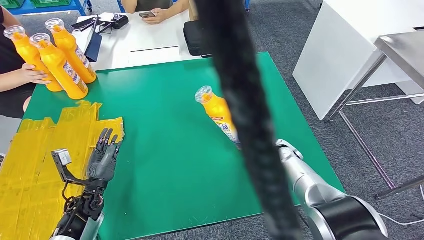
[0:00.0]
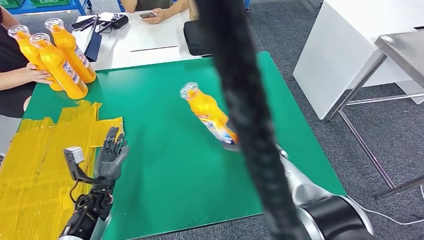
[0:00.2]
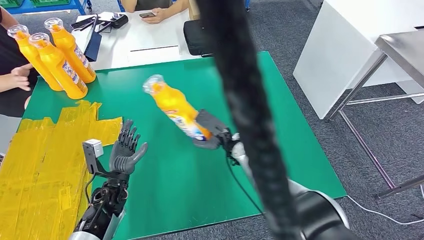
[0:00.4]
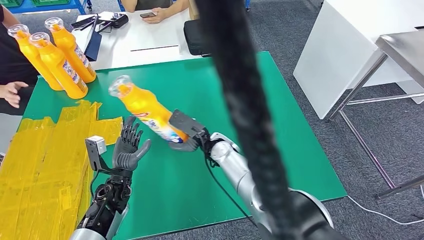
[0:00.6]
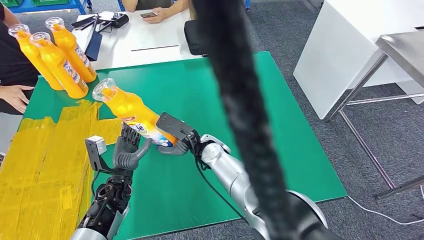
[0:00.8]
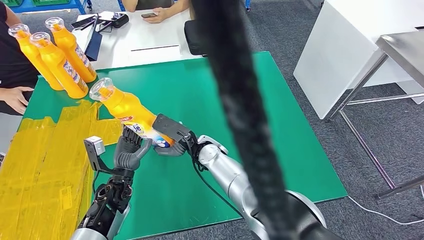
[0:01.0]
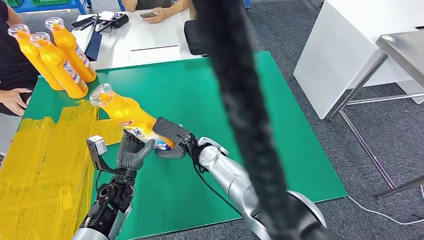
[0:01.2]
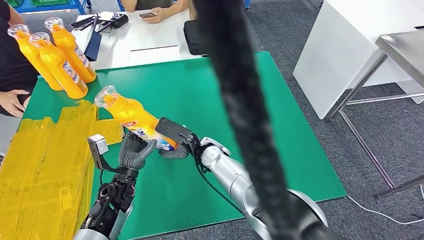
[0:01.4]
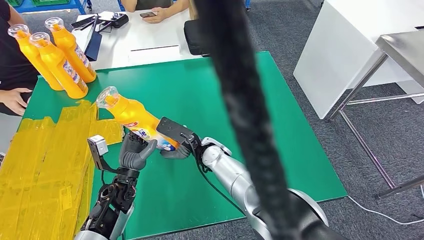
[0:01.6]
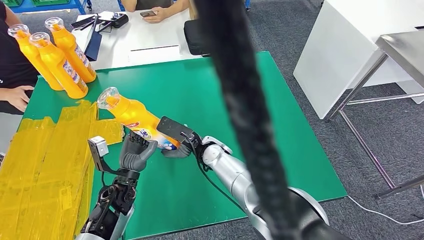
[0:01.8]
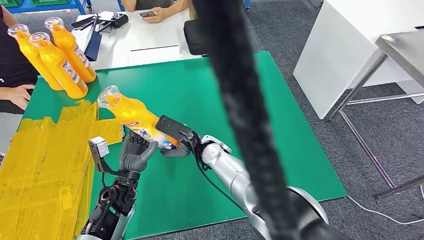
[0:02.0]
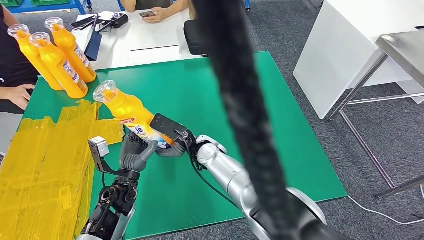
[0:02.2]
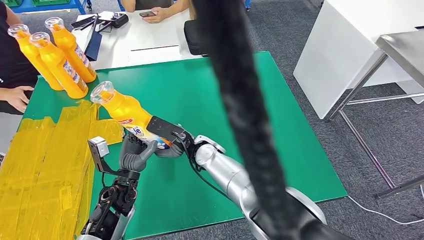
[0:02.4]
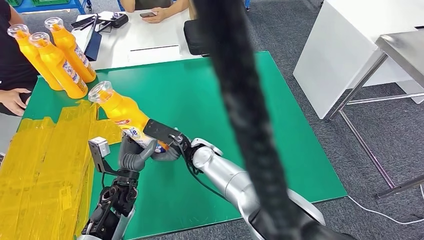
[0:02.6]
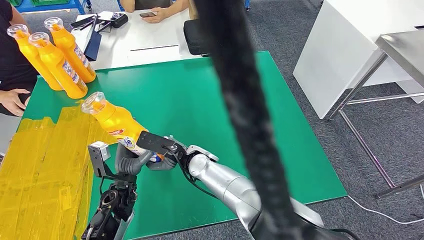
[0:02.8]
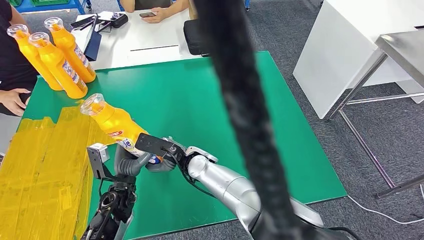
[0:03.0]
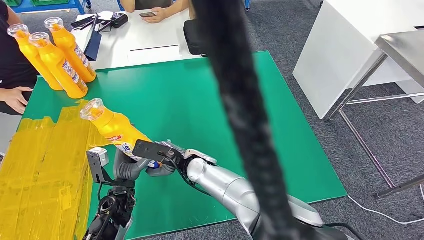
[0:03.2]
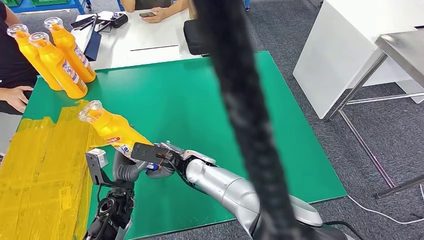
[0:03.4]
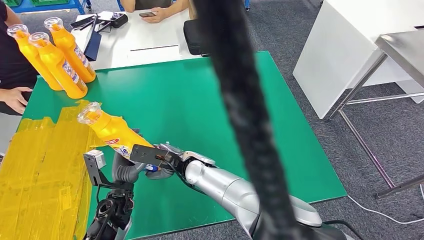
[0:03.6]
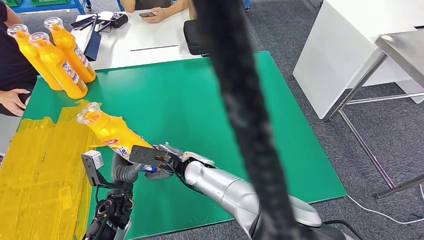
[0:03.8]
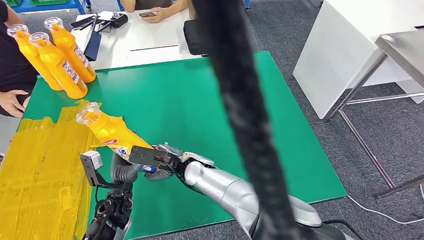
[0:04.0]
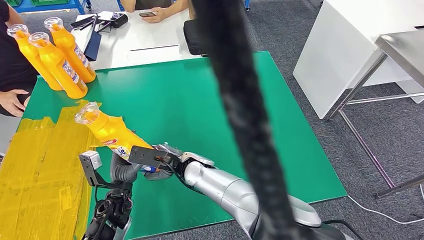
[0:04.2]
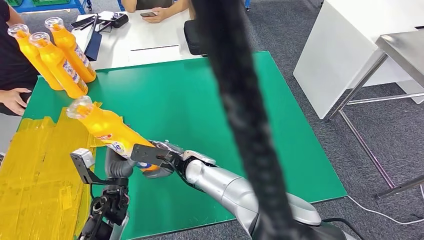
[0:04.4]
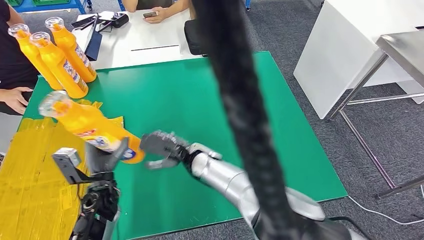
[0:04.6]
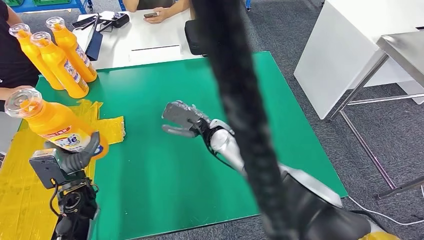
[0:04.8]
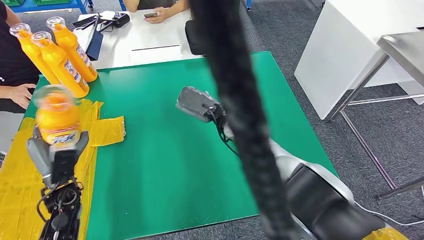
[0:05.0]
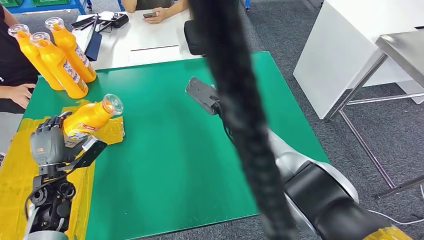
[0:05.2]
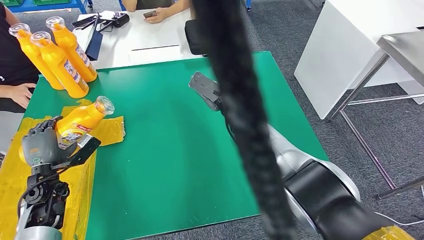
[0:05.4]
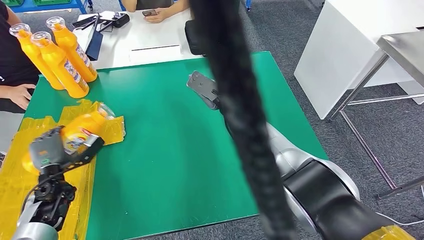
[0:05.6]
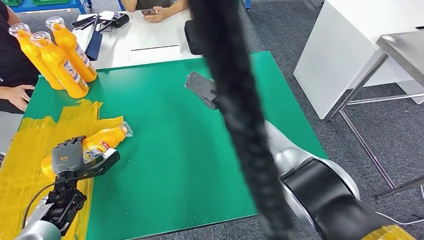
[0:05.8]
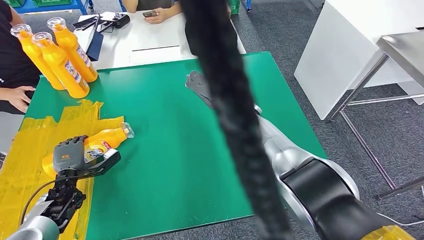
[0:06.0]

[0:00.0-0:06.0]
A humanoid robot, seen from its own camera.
Step, 0:01.2 to 0:06.0: Flip the fast-moving consumer goods bottle to the front side.
0:01.6 to 0:03.0: The right hand moves roughly 5 cm.
0:03.0 to 0:04.4: The hands stay close to where they were, moving slightly.
